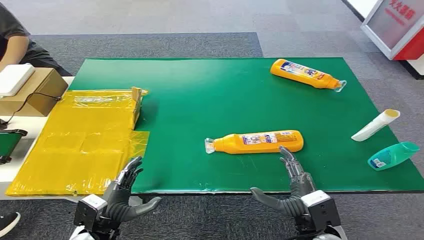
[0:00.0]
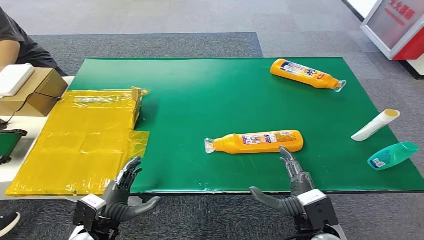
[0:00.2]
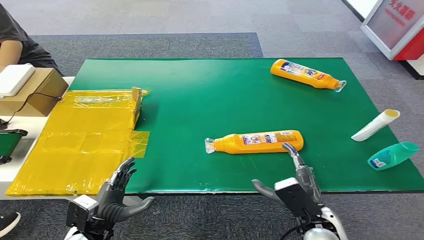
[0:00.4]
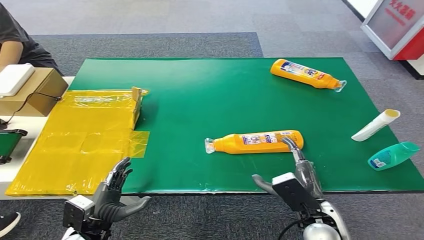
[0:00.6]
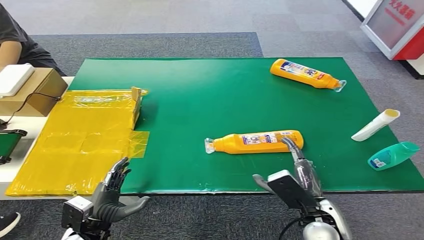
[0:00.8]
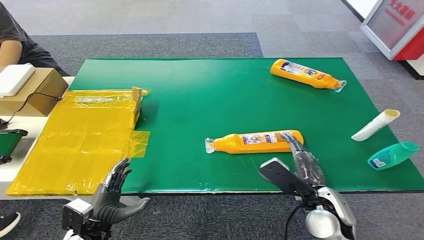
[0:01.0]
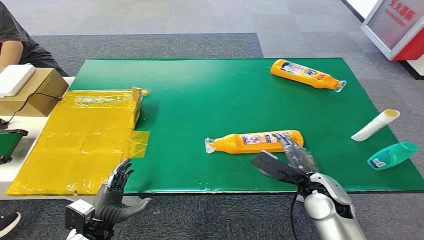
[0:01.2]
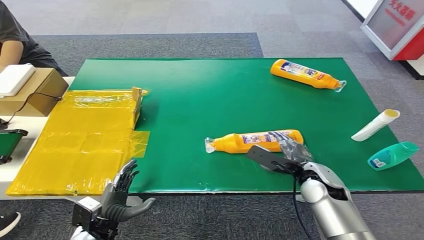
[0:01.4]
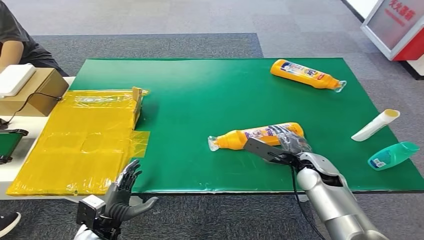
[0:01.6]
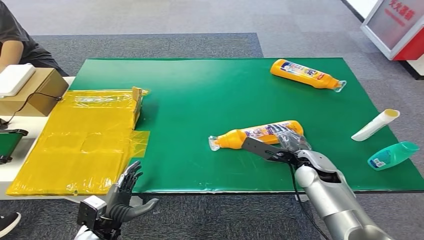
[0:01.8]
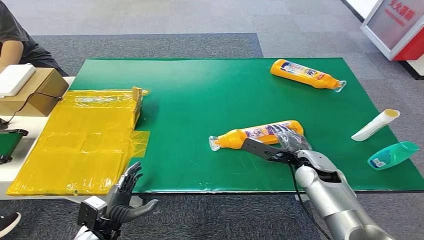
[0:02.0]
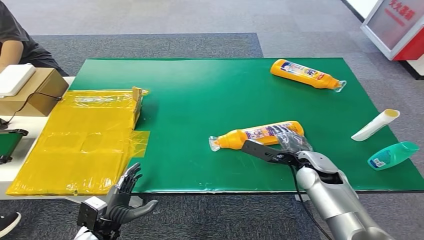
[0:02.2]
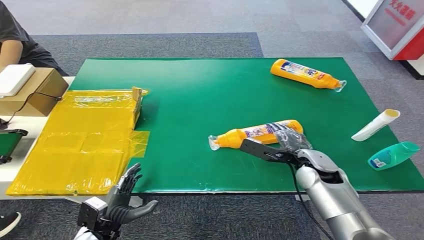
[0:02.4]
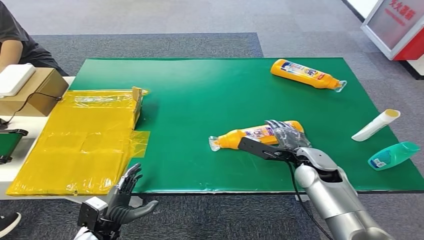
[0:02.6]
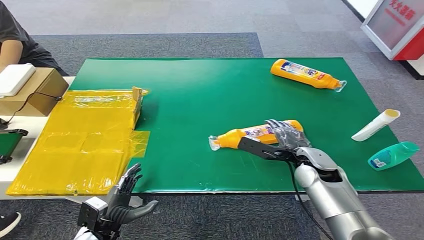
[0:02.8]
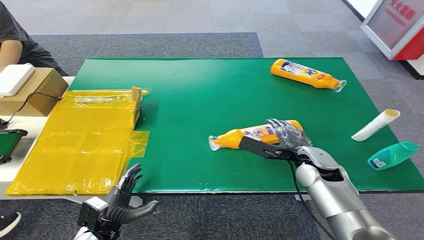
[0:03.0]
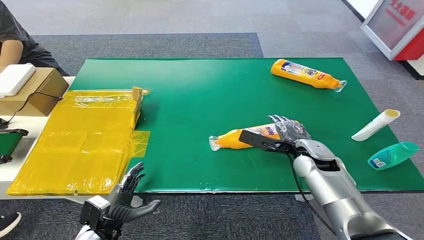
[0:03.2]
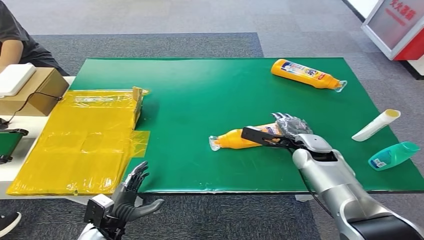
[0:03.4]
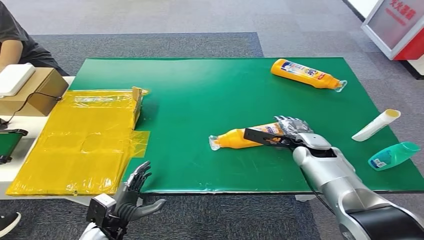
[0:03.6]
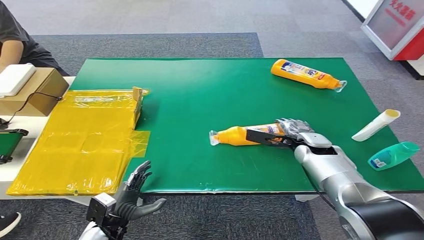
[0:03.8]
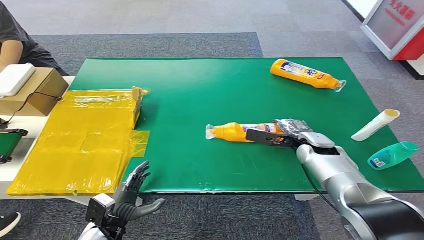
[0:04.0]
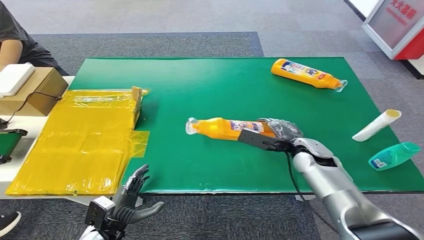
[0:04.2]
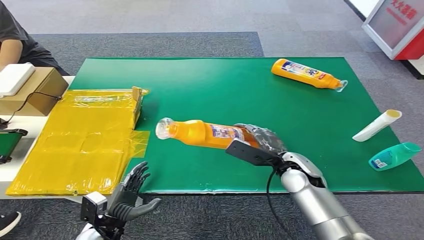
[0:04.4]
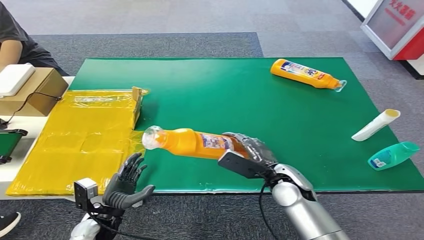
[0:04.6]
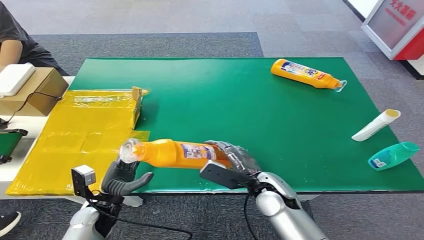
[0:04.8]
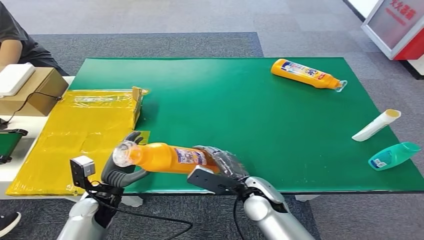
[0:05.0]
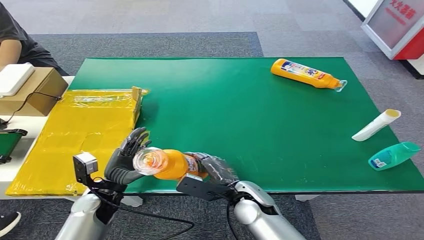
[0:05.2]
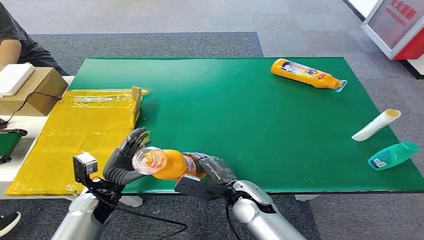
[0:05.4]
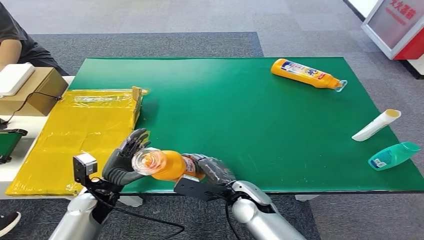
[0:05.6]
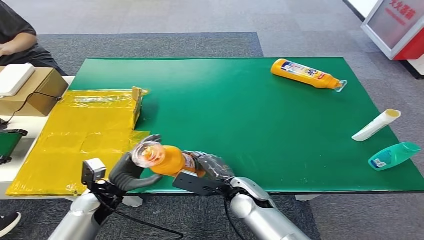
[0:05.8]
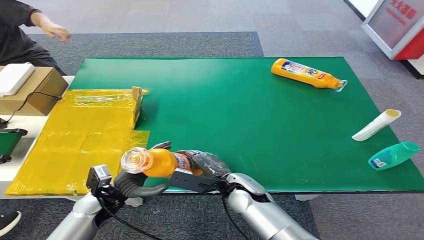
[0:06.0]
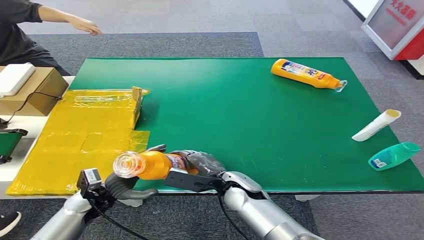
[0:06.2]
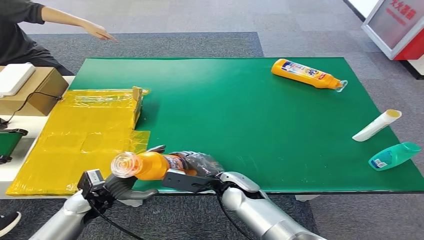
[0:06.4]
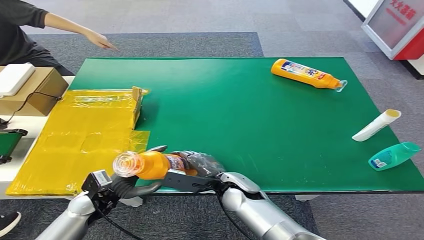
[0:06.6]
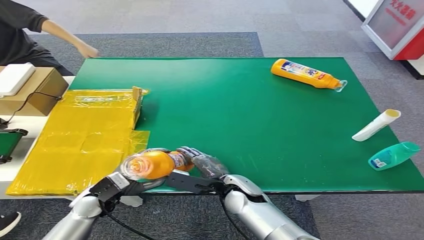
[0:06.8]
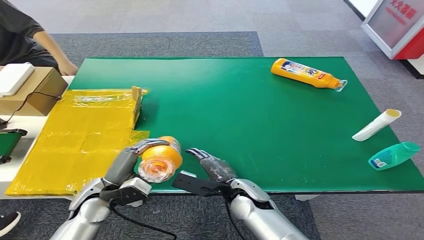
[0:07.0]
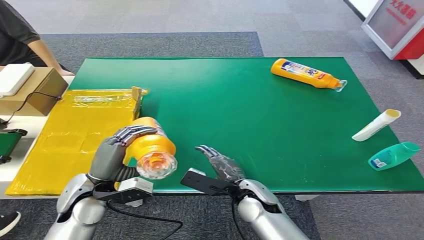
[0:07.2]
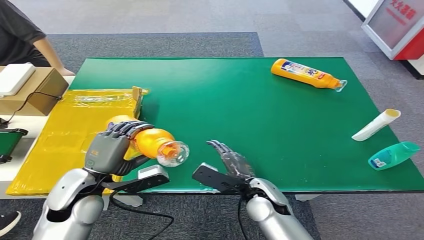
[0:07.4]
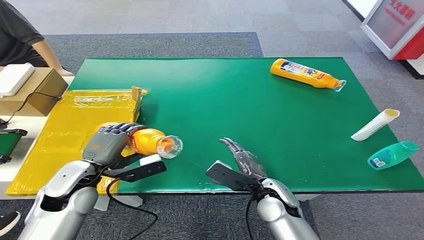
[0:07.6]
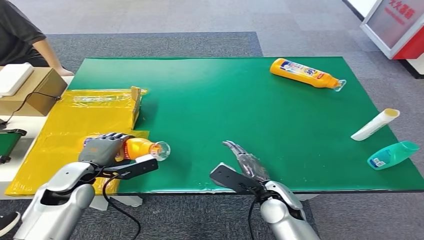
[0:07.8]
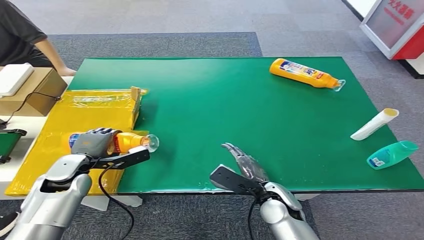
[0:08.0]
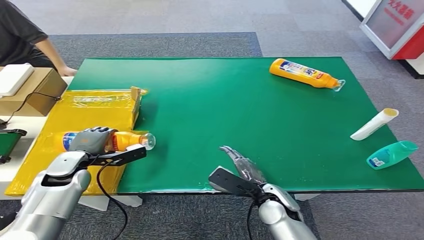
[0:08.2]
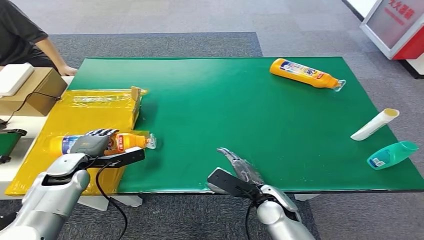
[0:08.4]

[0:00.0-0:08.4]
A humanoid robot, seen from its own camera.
Step, 0:00.0 to 0:04.6: Pick up the bottle from the table.
Step, 0:04.8 to 0:08.4: Turn the bottle to the front side.
0:01.4 to 0:02.8: There are only small adjustments of the hands.
0:04.2 to 0:05.6: The left hand moves forward and upward, approximately 10 cm; the right hand shifts some 20 cm to the left and backward.
0:07.0 to 0:08.4: The left hand moves forward and to the left, roughly 10 cm. Meanwhile the right hand goes some 5 cm to the right.
